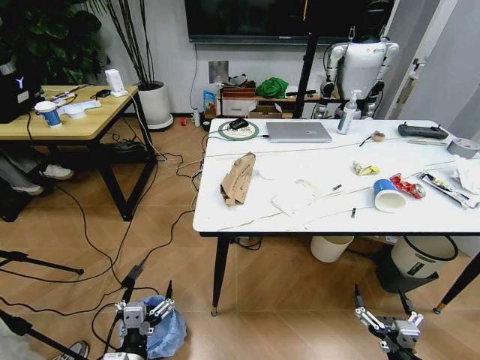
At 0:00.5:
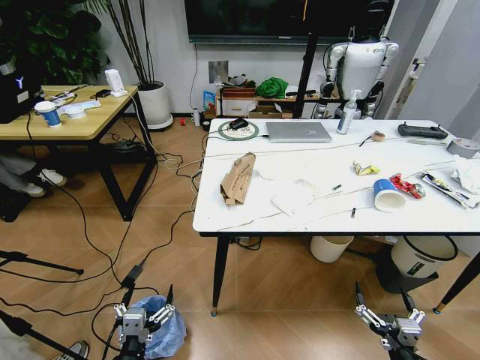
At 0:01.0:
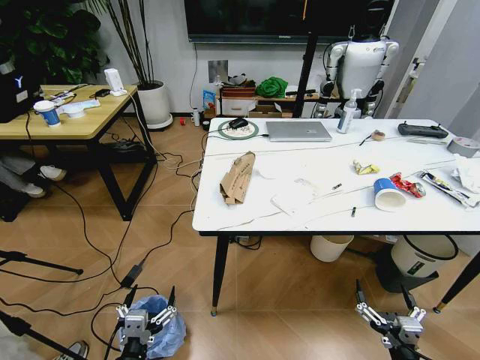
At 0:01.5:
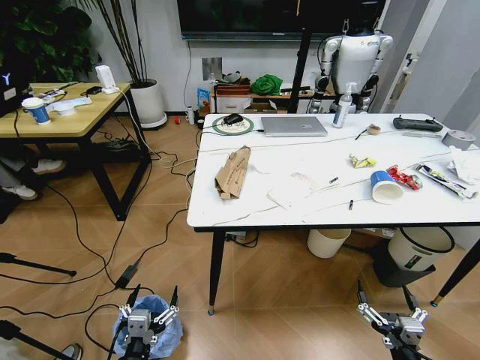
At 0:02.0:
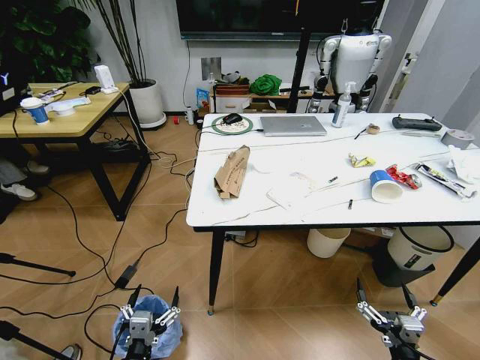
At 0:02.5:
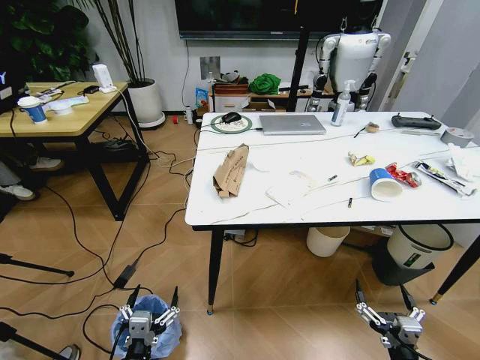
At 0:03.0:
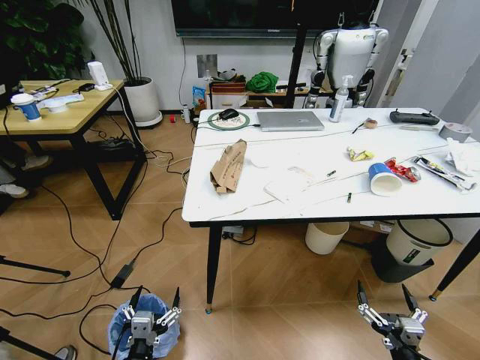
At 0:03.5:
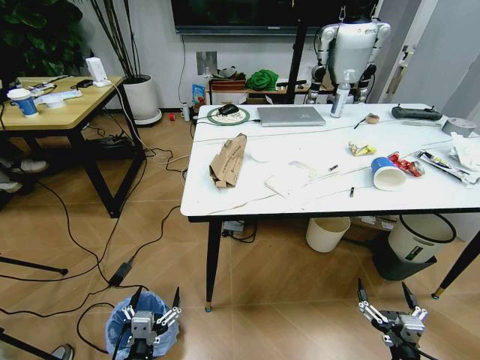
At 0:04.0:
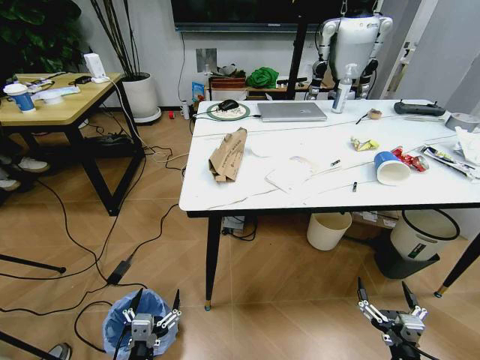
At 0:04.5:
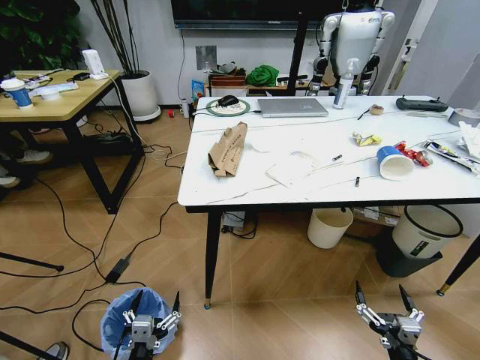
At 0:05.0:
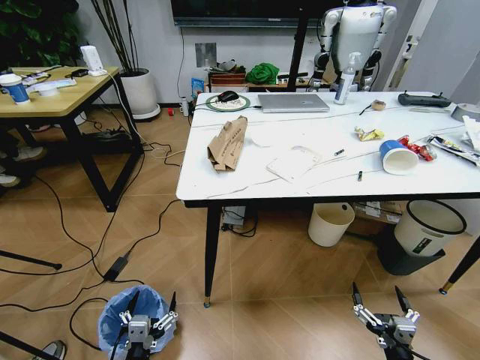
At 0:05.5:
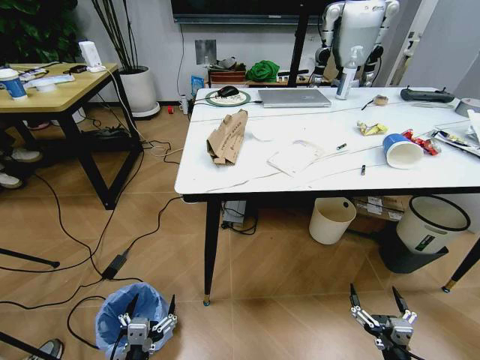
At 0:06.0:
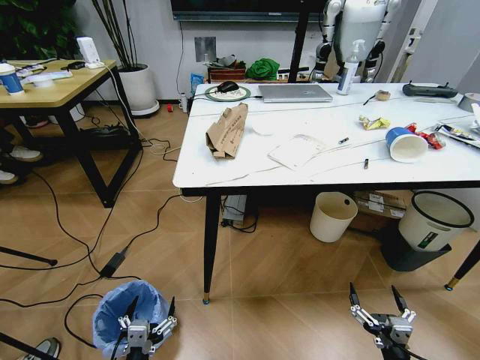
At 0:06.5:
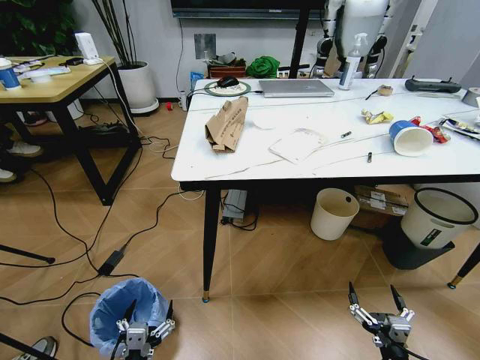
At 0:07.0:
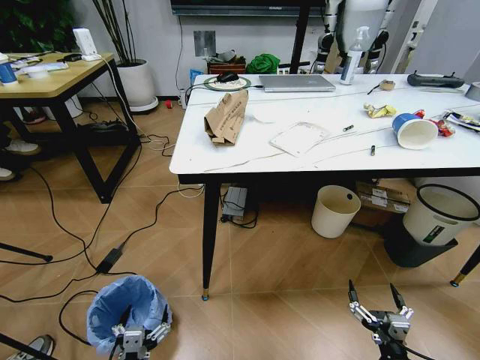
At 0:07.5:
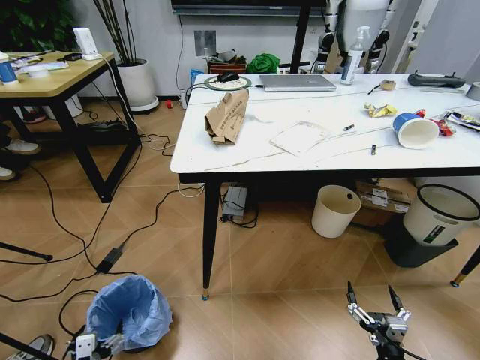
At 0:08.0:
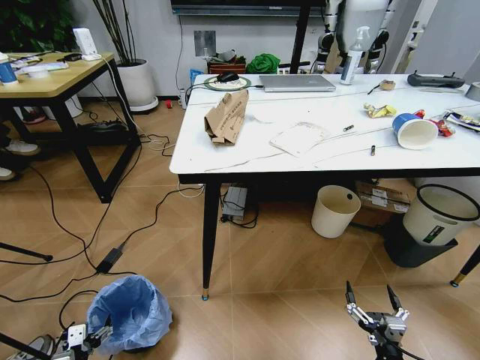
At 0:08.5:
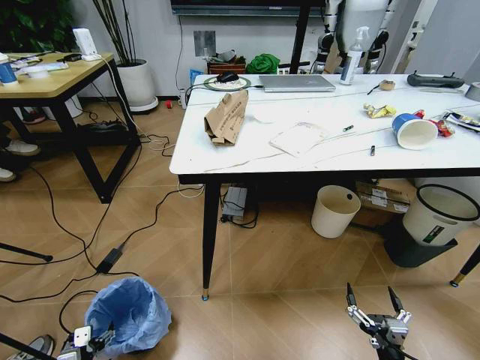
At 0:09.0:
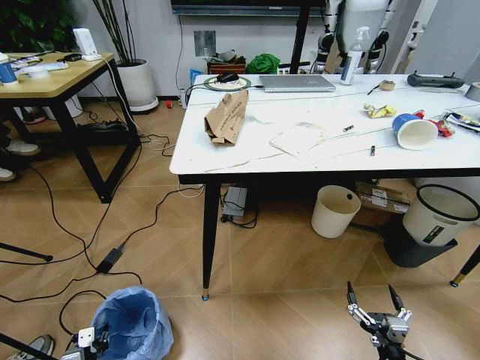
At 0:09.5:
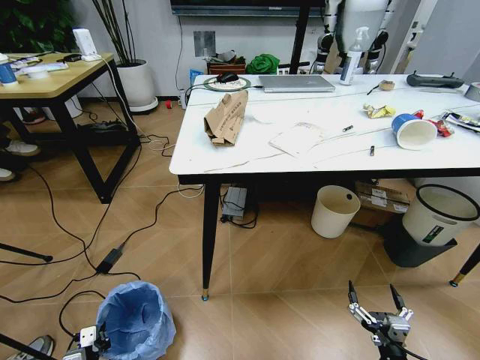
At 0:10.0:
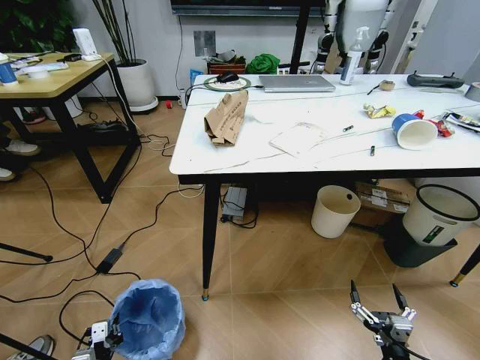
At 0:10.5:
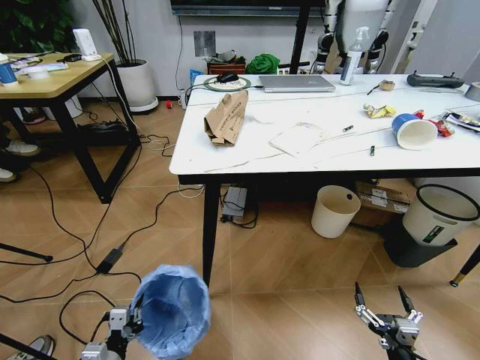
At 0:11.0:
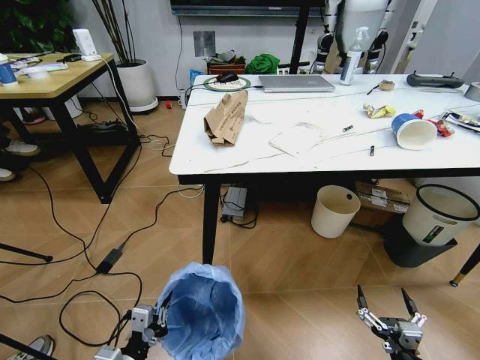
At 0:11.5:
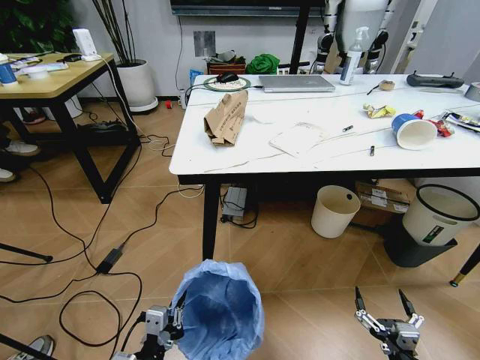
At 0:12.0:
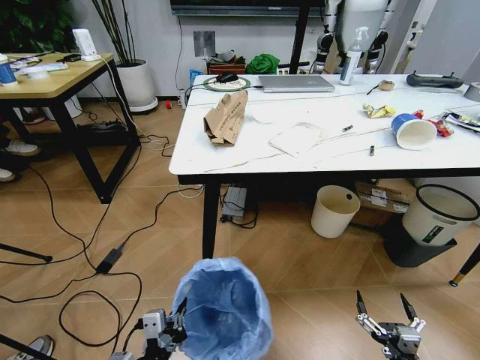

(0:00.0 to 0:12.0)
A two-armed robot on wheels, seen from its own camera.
Task of the whole recording: Pick up the trash bin and place the trash from the table into it.
0:06.0 - 0:08.0: The left gripper heads to the left, covering some 15 cm.
0:08.0 - 0:10.0: The left gripper closes its fingers.
0:10.0 - 0:12.0: The left gripper shifts roughly 25 cm upward and to the right.

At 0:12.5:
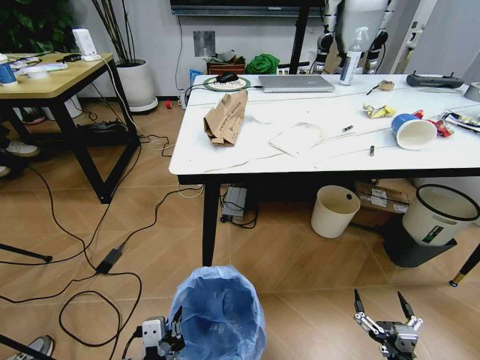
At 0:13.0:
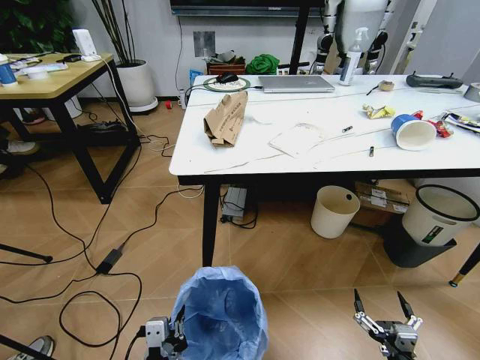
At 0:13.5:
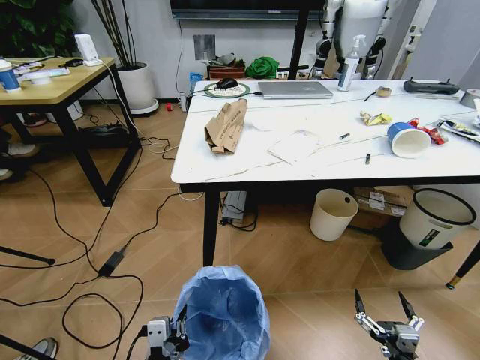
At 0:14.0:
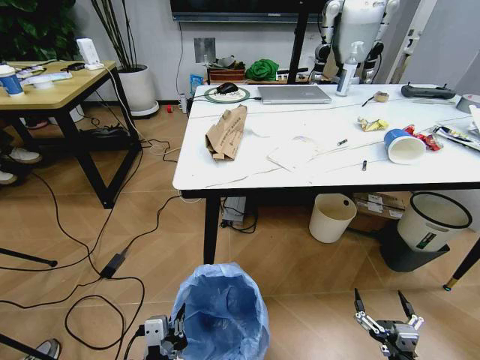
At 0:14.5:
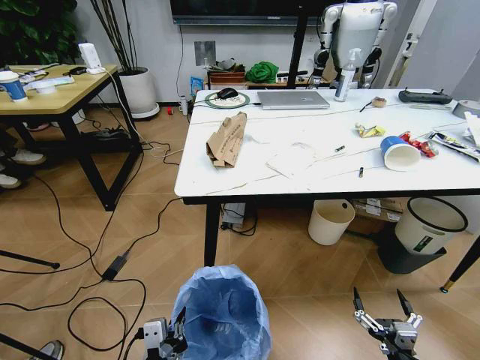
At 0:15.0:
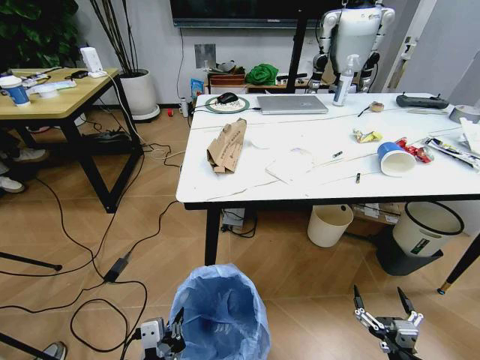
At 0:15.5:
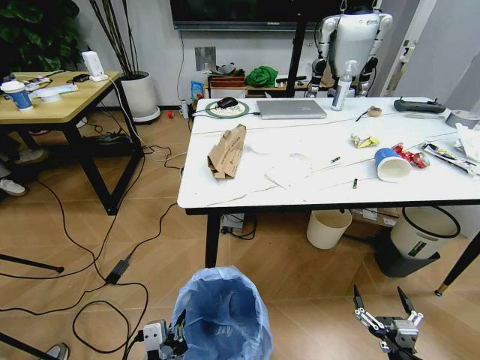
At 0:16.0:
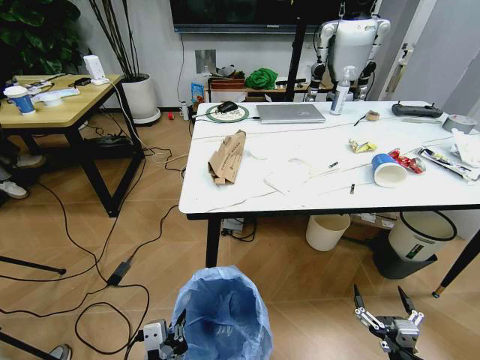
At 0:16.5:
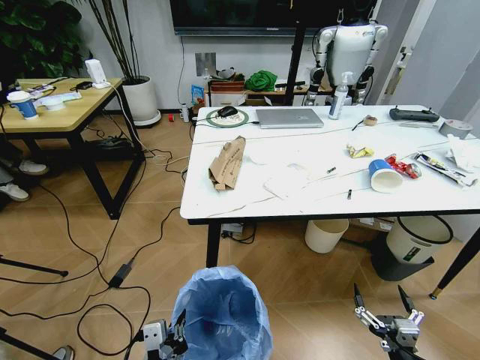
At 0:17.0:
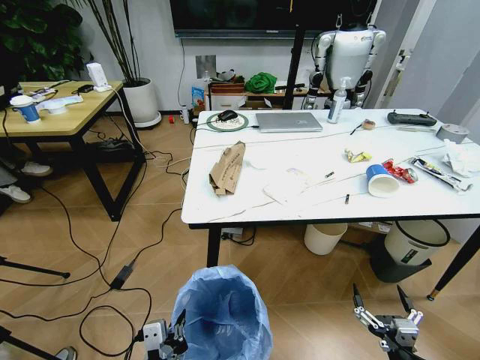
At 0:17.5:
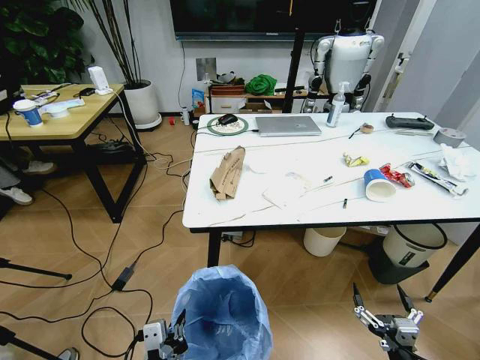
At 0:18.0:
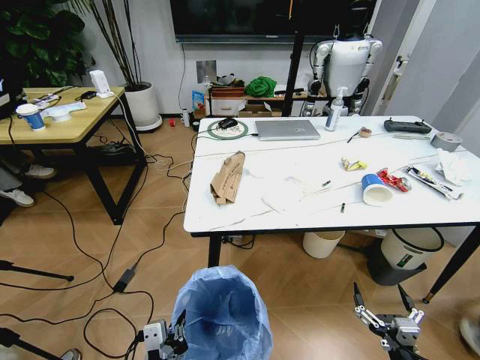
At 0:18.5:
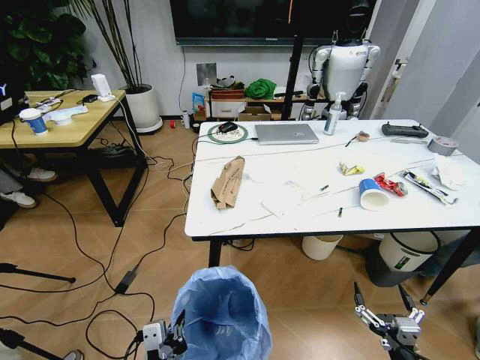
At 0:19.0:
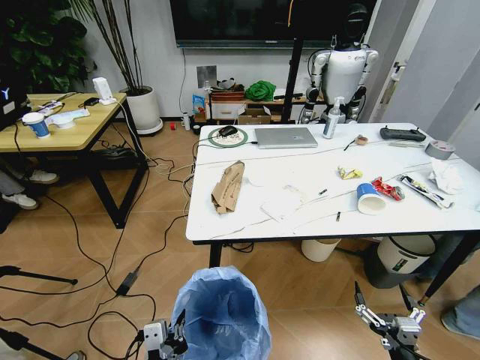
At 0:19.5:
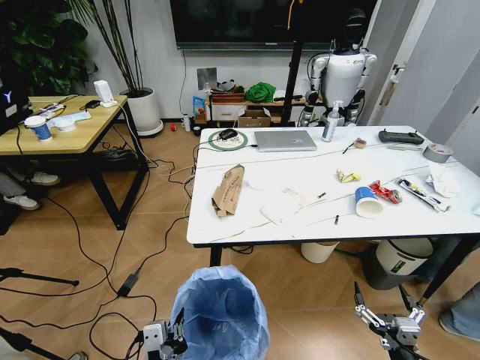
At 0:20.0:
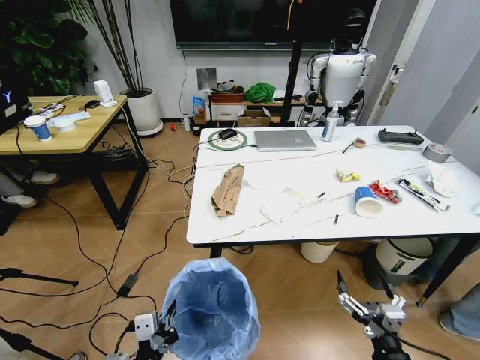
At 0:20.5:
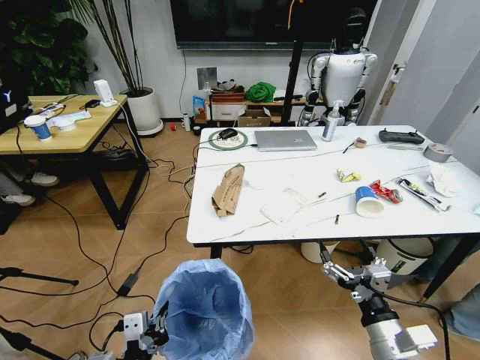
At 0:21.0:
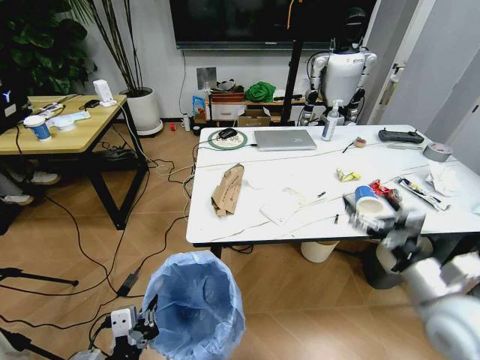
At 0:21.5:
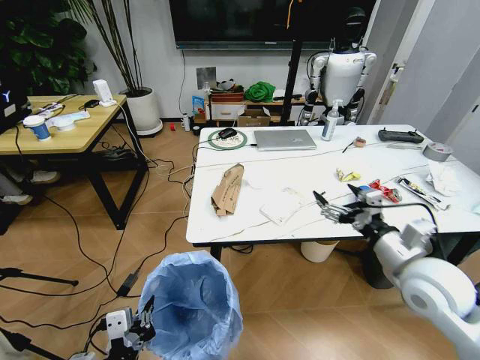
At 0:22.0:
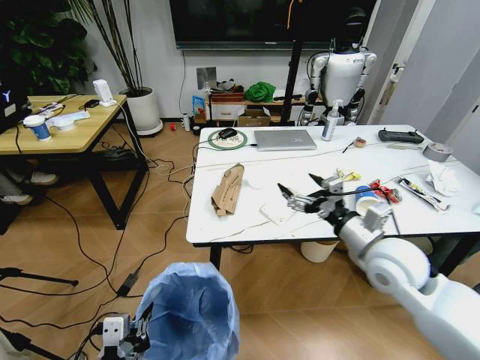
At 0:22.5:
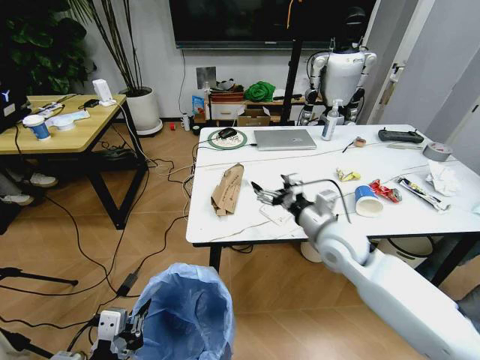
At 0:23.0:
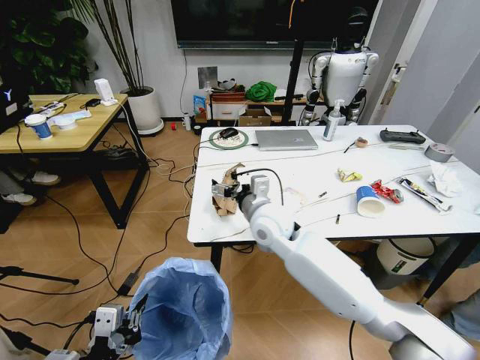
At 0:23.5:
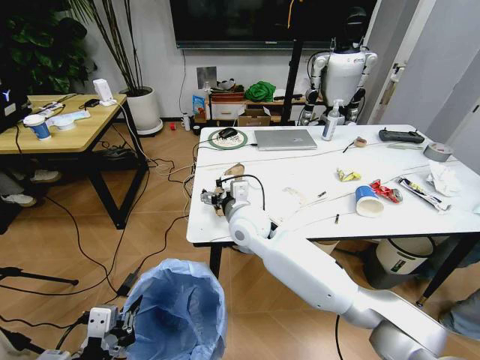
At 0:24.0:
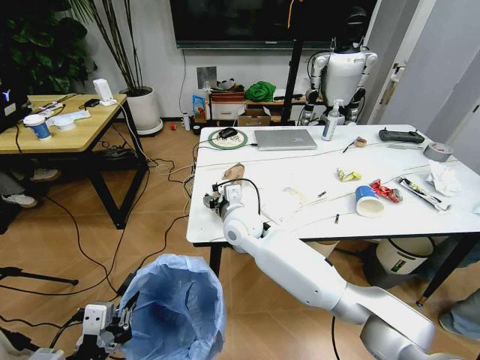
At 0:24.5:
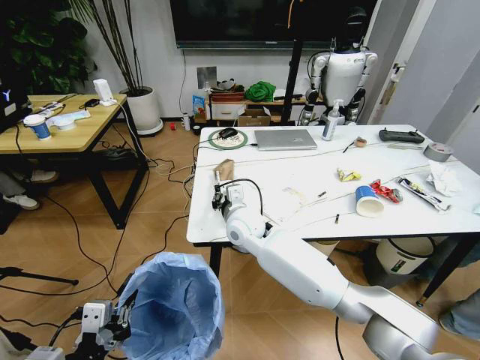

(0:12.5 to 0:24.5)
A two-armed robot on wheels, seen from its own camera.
Task of the whole recording: Pick up the trash bin and place the trash from the table into it.
0:18.5 - 0:20.5: The right gripper heads upward, forward and to the left, covering approximately 15 cm.
0:20.5 - 0:22.5: The right gripper shifts approximately 20 cm forward. The left gripper moves to the left, approximately 5 cm.
0:22.5 - 0:24.5: The right gripper moves to the left and forward, roughly 25 cm, and closes up.

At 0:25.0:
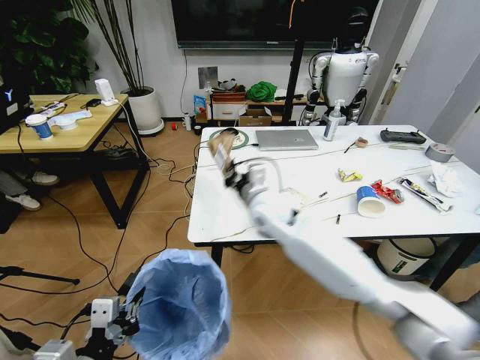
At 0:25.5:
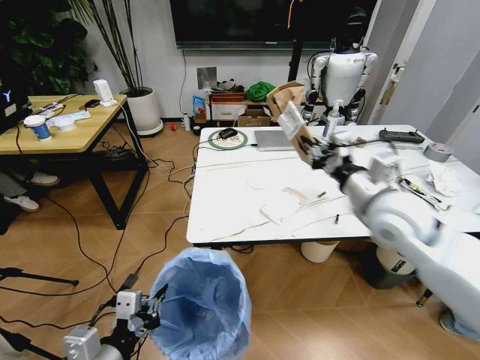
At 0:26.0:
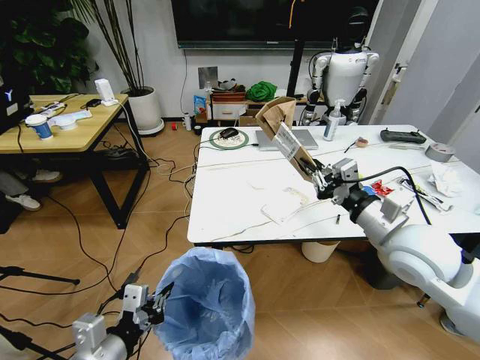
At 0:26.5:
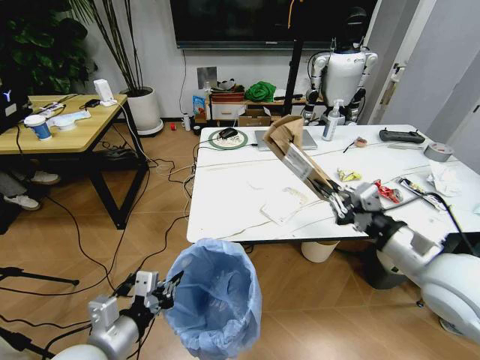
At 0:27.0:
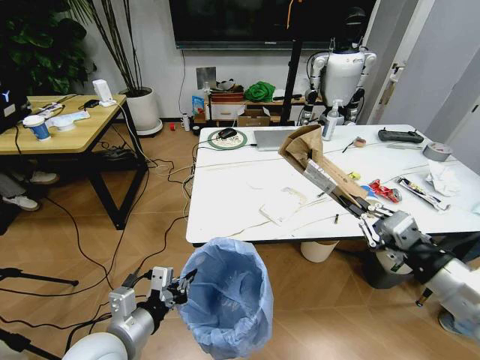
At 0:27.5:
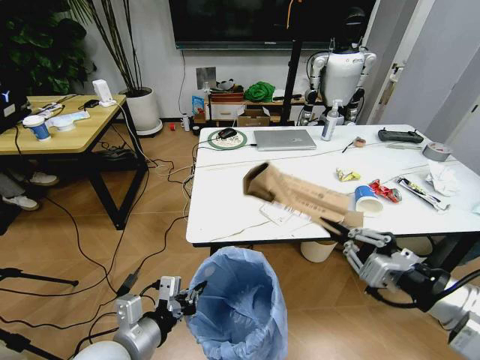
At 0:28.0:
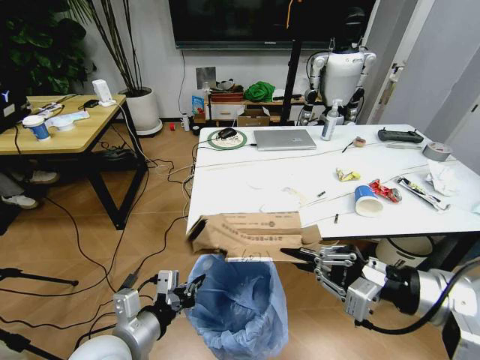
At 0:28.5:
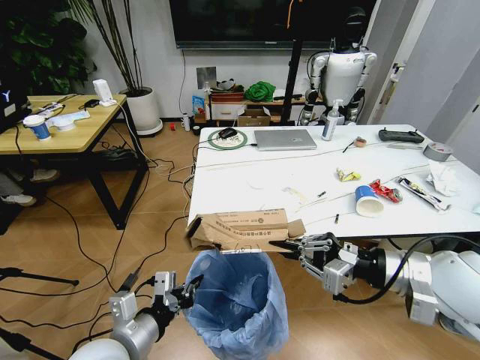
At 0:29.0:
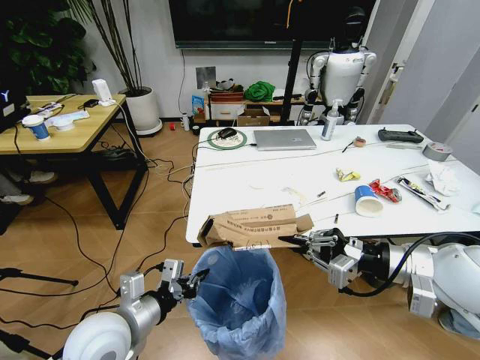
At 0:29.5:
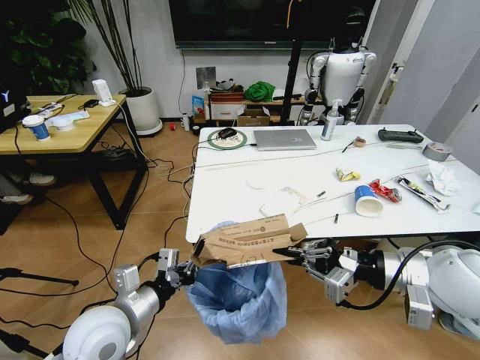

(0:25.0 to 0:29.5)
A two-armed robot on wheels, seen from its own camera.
Task of the whole recording: Pick up the trash bin and place the trash from the table into it.
0:25.0 - 0:27.0: The left gripper is displaced forward by approximately 10 cm. Meanwhile the right gripper heads to the right and backward, covering roughly 40 cm.
0:27.0 - 0:29.5: The right gripper is displaced forward by approximately 10 cm.
